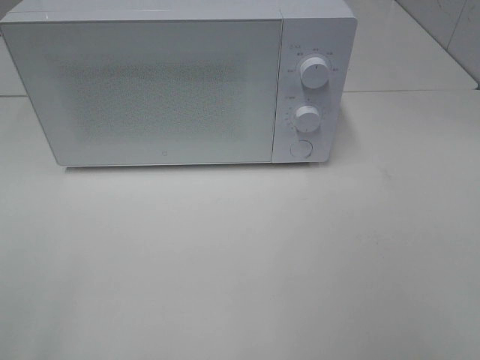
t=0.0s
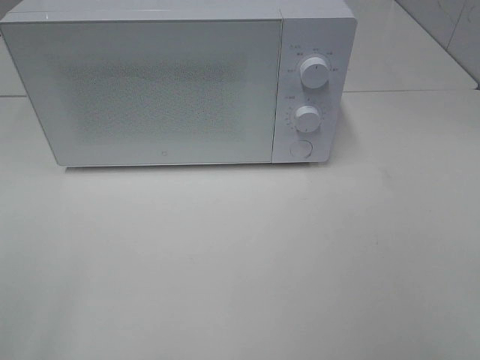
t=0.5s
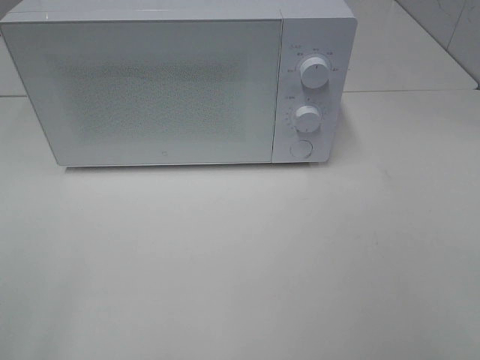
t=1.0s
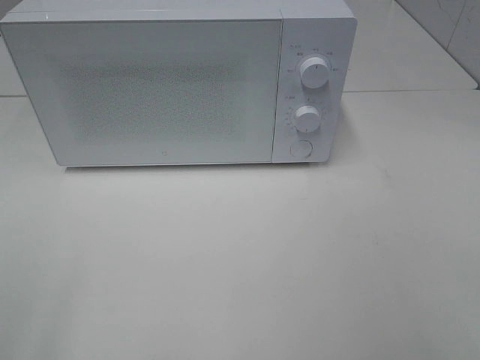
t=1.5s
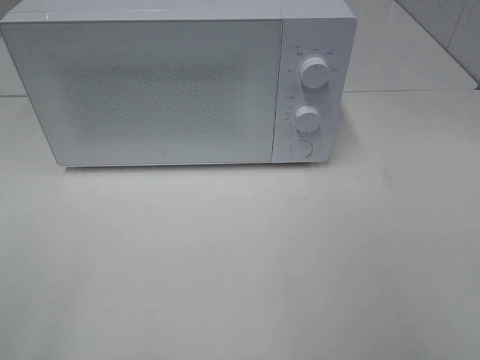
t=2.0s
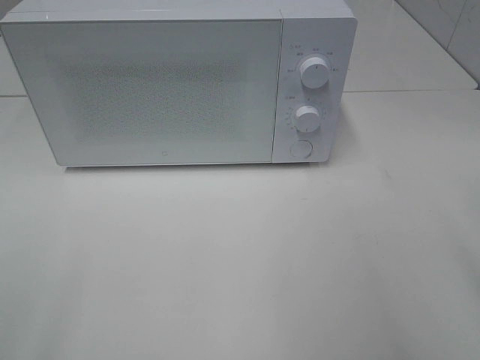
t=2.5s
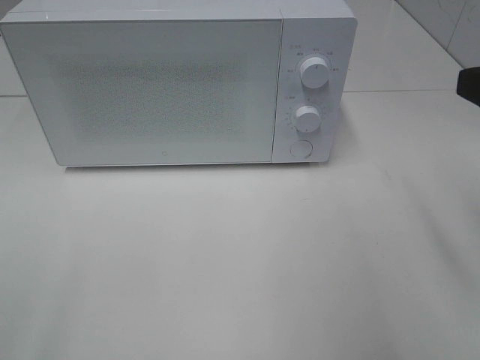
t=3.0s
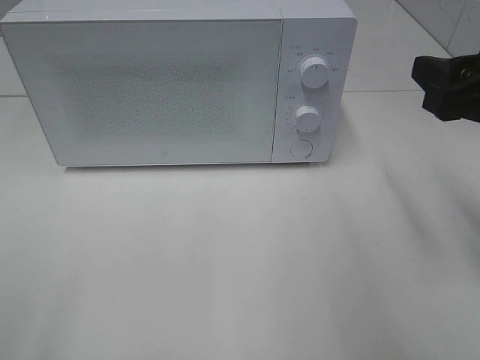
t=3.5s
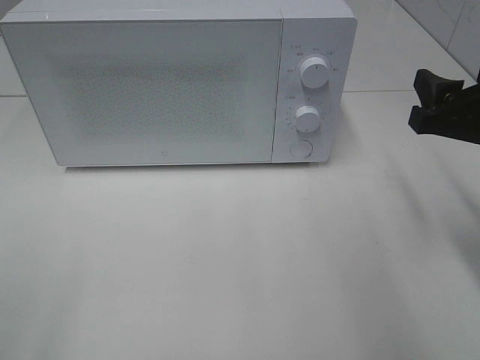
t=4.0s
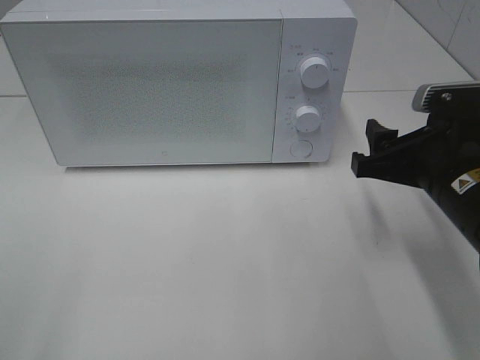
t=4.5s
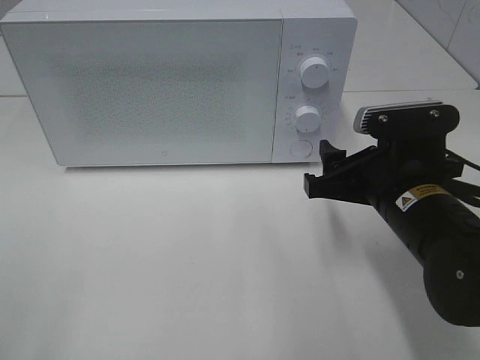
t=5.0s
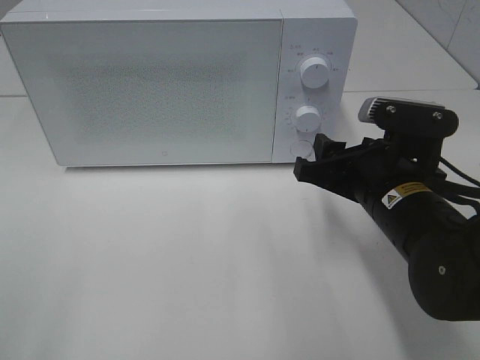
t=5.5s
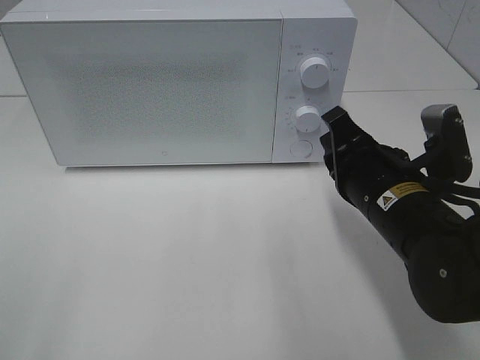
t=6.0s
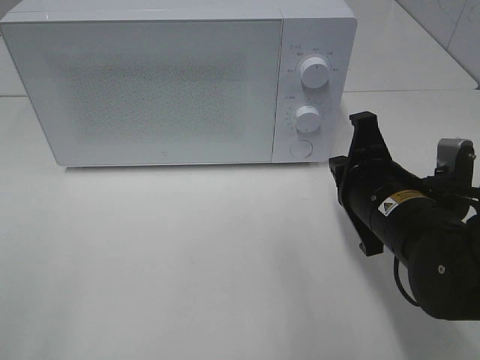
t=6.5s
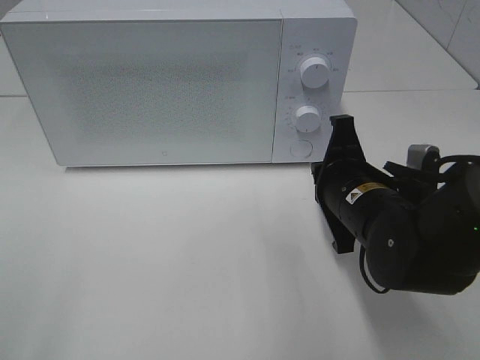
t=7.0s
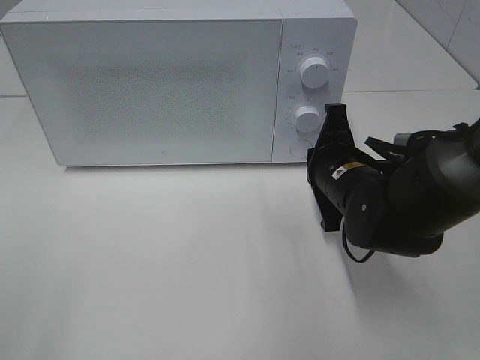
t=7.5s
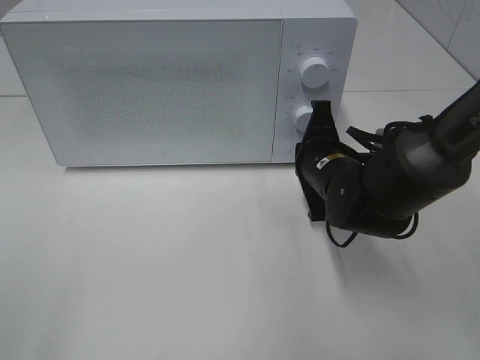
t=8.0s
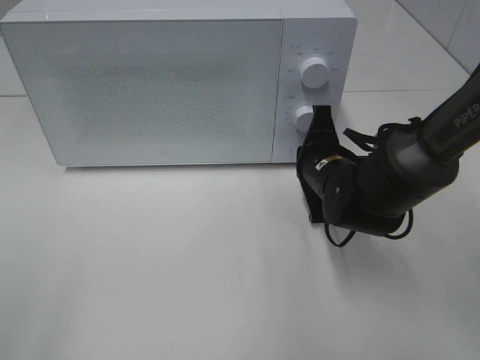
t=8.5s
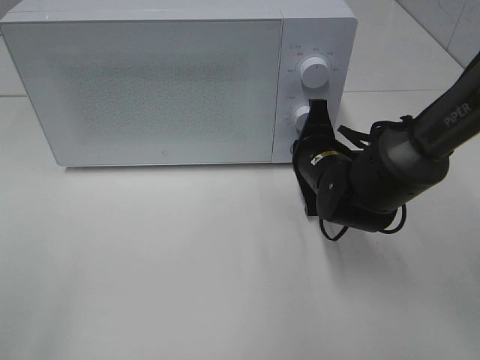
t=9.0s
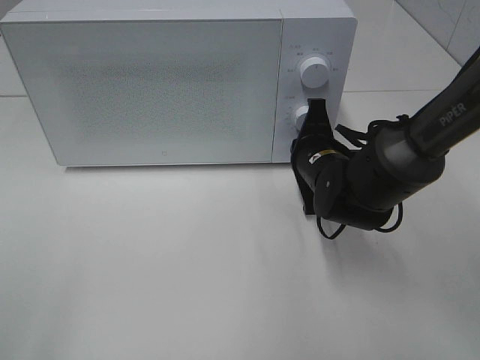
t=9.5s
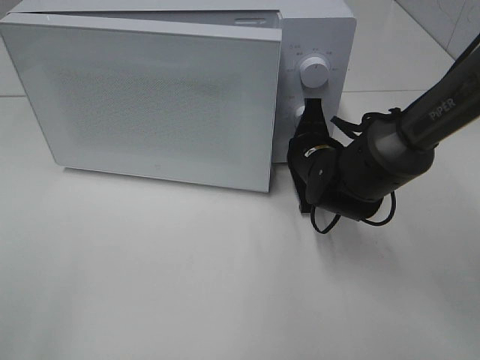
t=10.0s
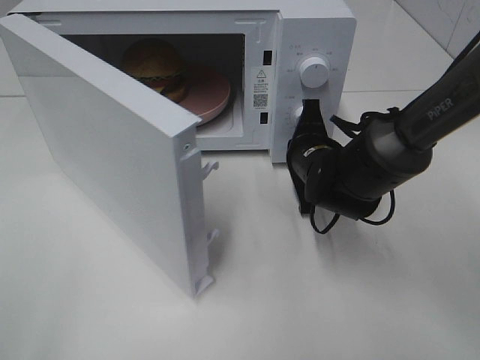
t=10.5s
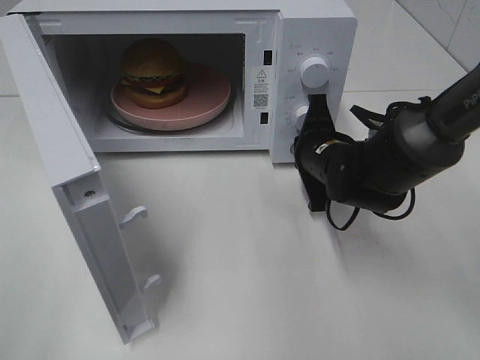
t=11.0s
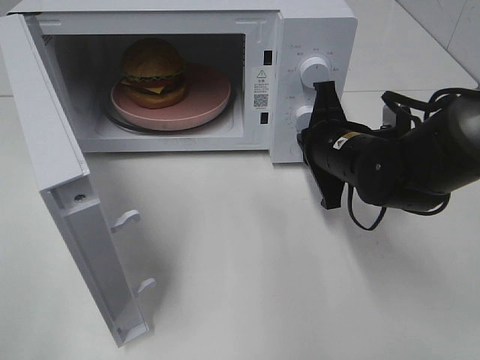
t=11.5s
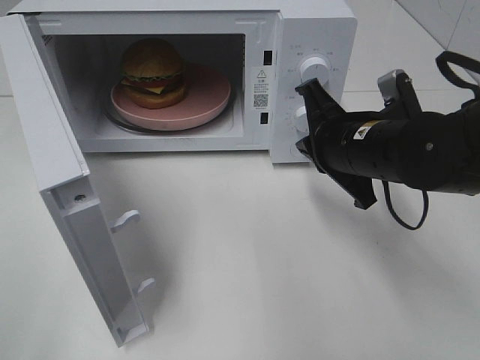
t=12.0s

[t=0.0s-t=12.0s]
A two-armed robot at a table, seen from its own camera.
Task of the whole recording: Heat the burger.
Step, t=0.0s to t=11.0s: Right hand: press the switch.
t=2.0s to t=4.0s: The right gripper travels forward and downward by roughly 20 cm.
t=4.0s to t=6.0s: The right gripper shifts about 10 cm to the left and downward, and closes.
t=6.0s to t=8.0s: The right gripper moves forward, about 10 cm.
t=8.0s to t=10.0s: There are only small adjustments of the grippers.
t=10.0s to t=12.0s: The right gripper is displaced upward and backward by approximately 10 cm.

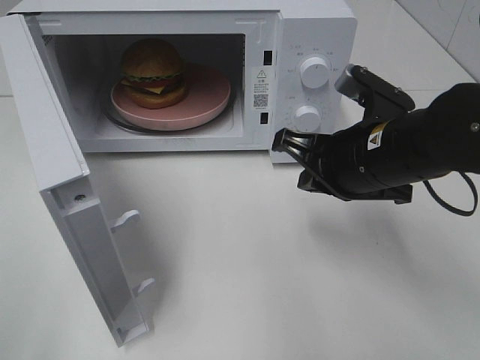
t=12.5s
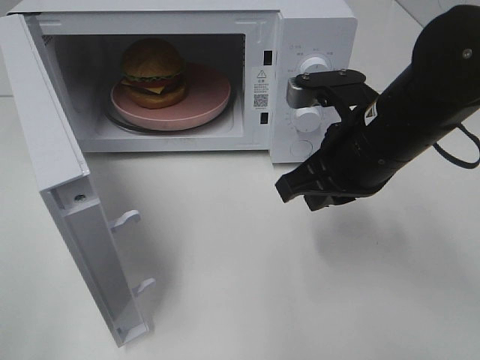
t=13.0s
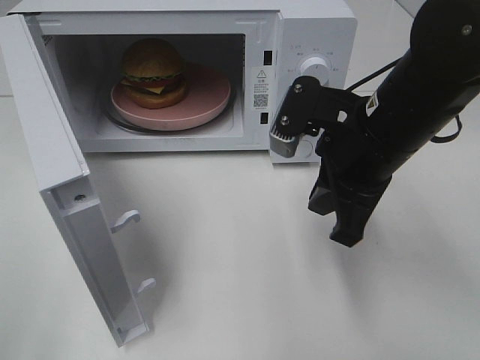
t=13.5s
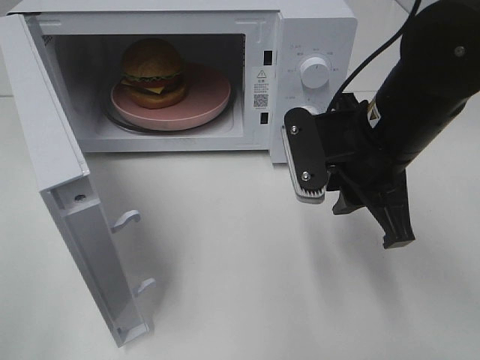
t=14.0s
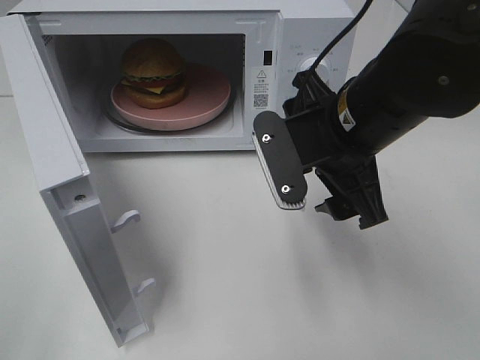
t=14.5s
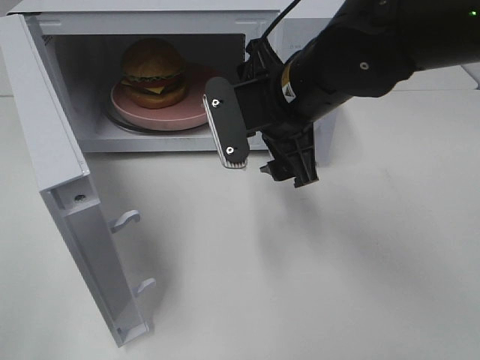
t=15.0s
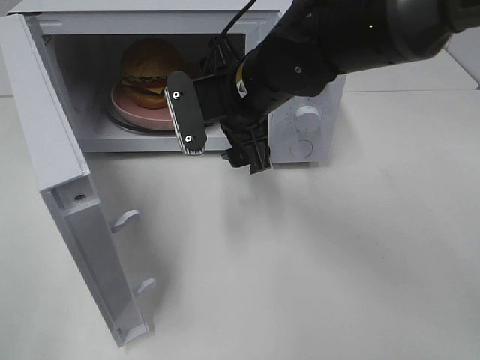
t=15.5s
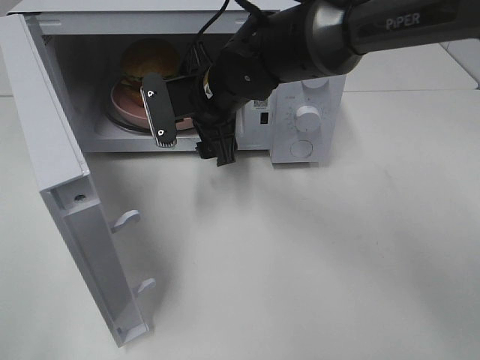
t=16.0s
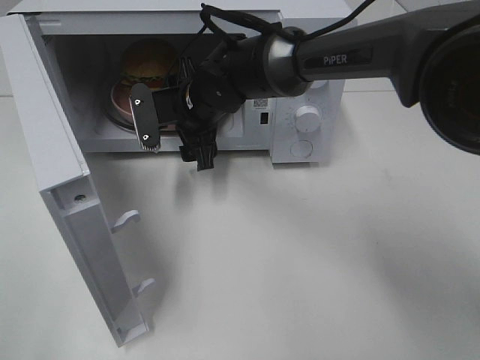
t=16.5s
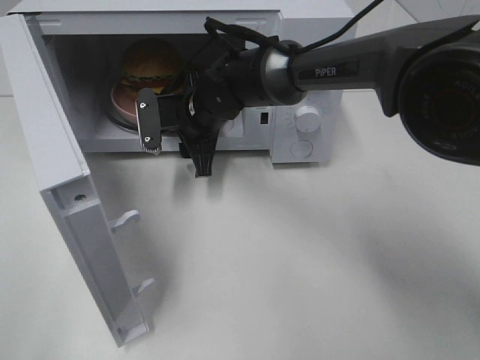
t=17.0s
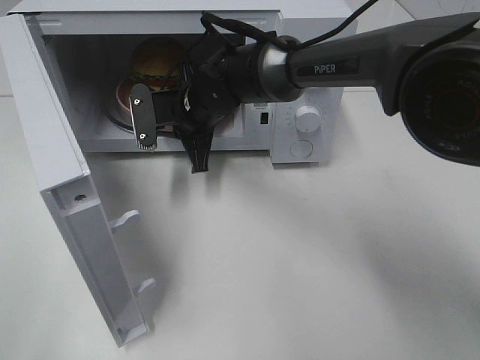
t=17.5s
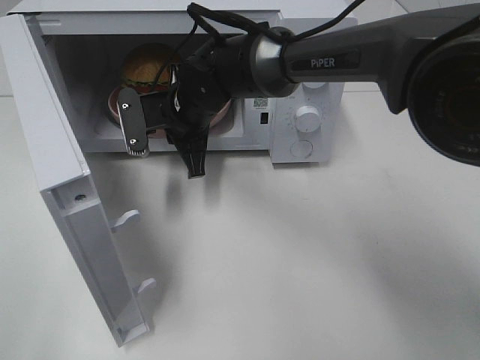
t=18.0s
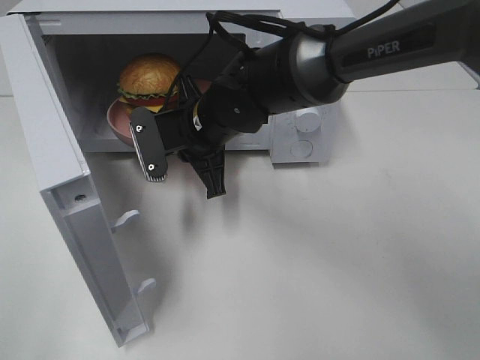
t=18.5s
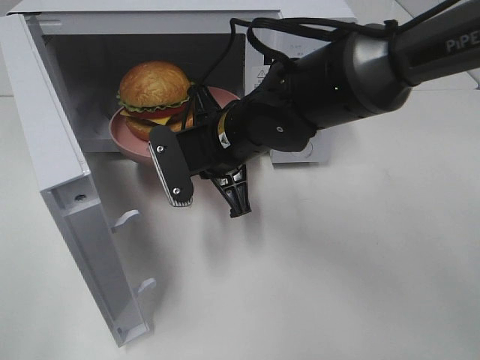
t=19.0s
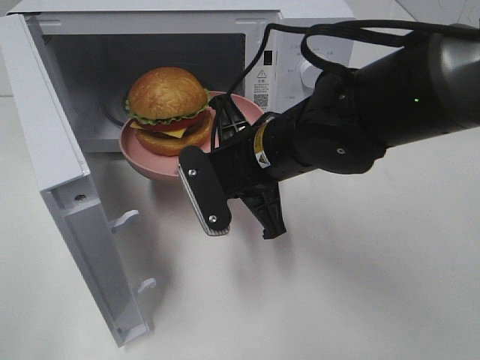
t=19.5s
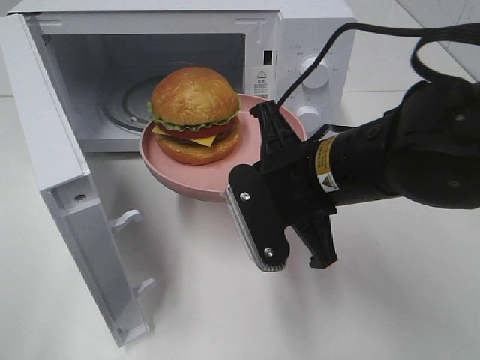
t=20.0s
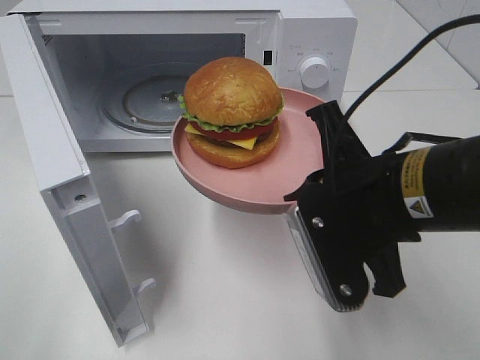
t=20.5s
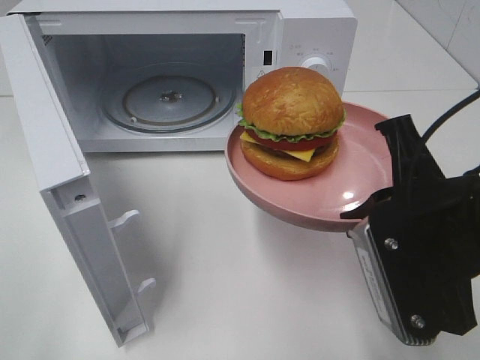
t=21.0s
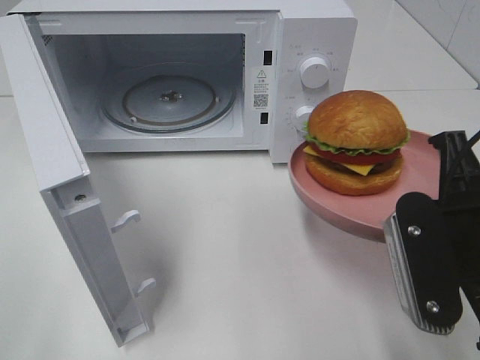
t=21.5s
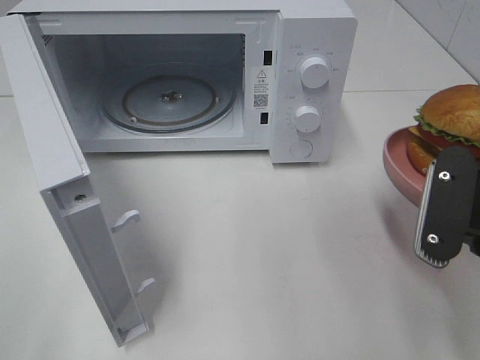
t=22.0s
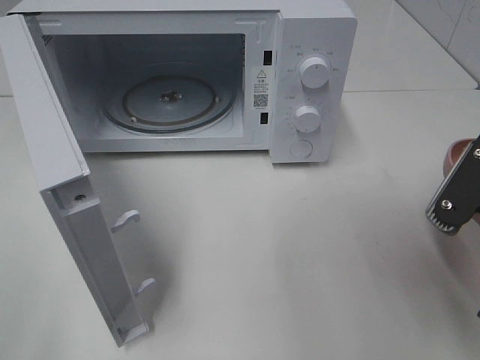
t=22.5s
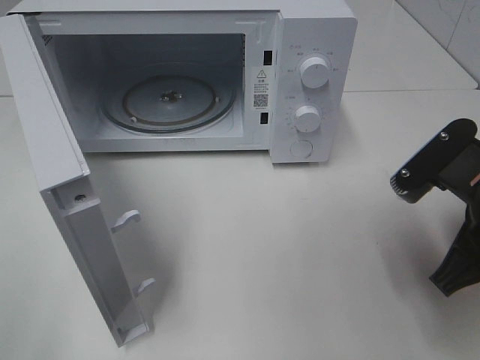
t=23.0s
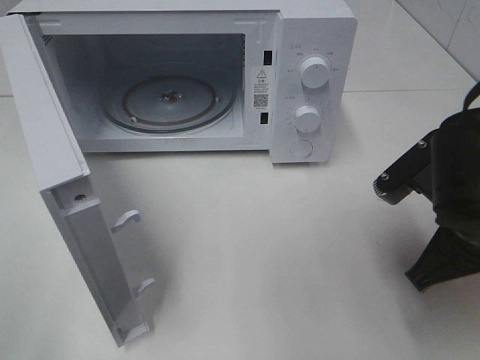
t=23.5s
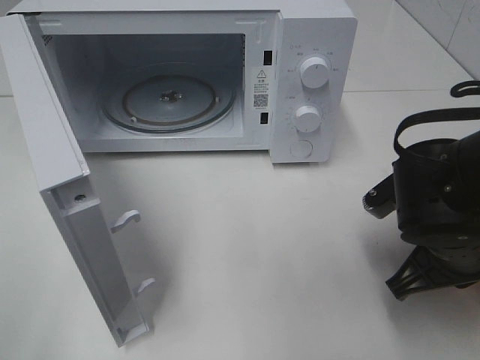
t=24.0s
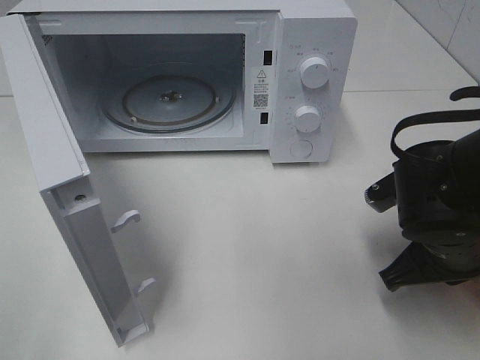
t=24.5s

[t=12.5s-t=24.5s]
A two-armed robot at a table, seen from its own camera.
Task of the whole recording: Heat the burger.
Step, t=12.5s to t=17.0s: Right hand: grab the plate with the hamburger.
t=12.5s to t=14.5s: The right gripper moves roughly 5 cm, and opens.
t=14.5s to t=16.5s: The right gripper heads forward, to the left and downward, covering roughly 20 cm.
t=16.5s to t=18.5s: The right gripper moves backward, some 5 cm, and closes.
t=18.5s to t=20.5s: The right gripper goes some 25 cm backward and to the right.
t=20.5s to t=22.5s: The right gripper heads to the right, covering roughly 10 cm.
t=22.5s to t=24.5s: The right gripper travels downward and forward by some 10 cm.

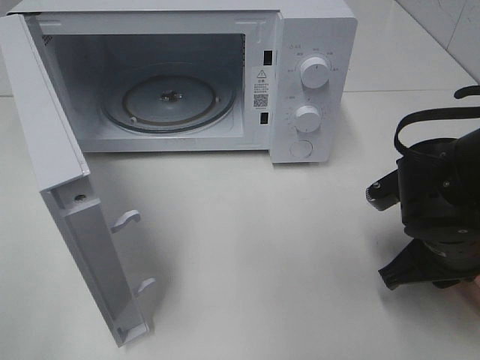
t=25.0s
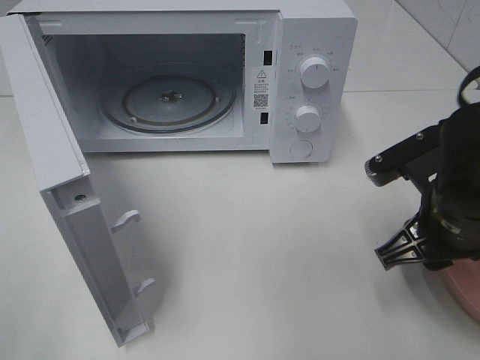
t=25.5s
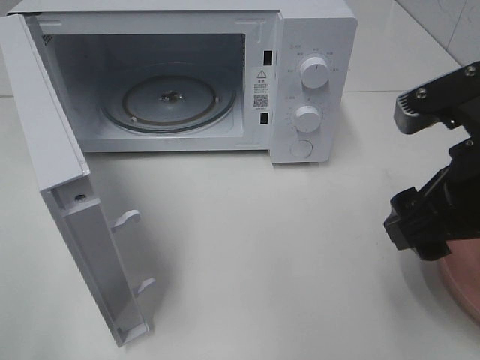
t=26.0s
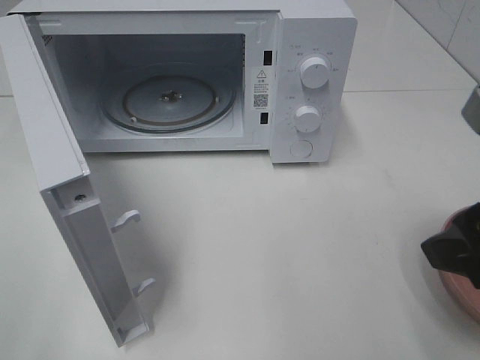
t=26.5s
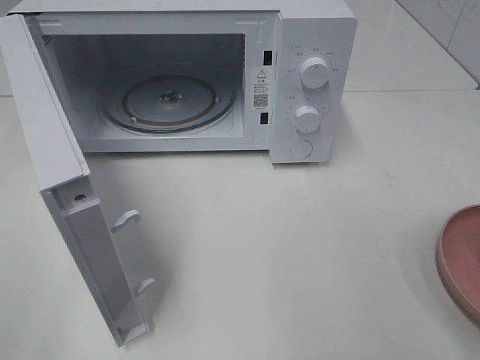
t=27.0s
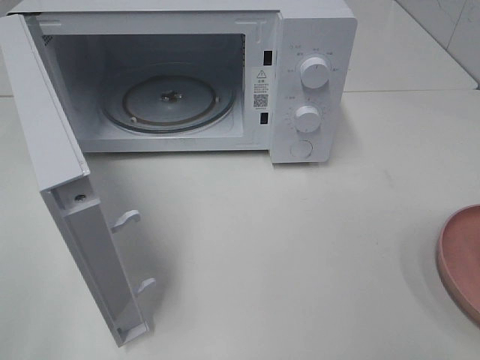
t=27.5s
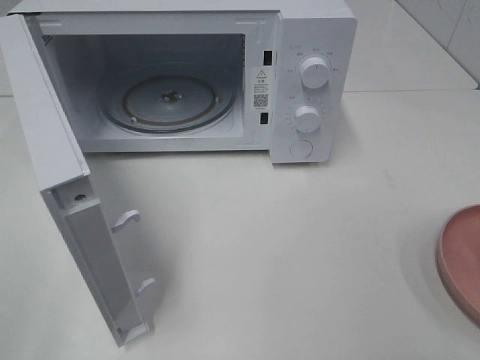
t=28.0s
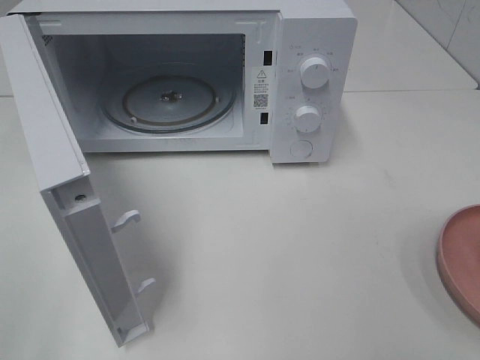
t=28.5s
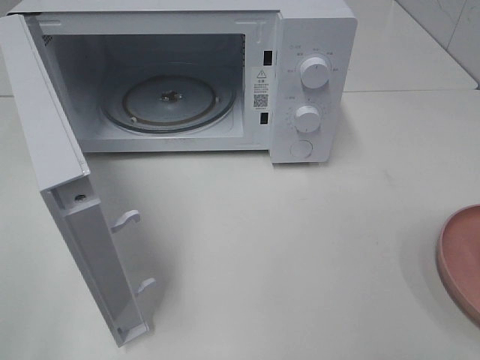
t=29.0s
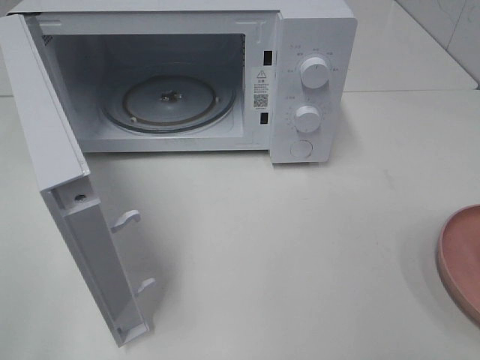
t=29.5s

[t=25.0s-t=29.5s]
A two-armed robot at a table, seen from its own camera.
Task of the whole recording: Heat the burger.
t=25.0s to t=27.0s: The right gripper heads upward and backward, covering about 20 cm, and opens.
